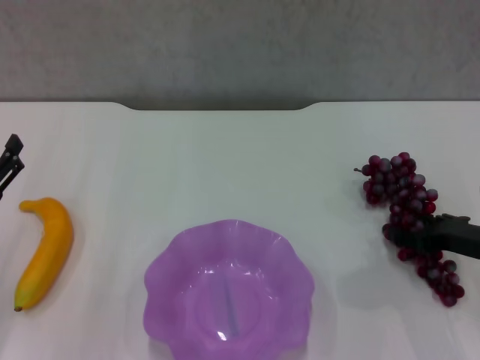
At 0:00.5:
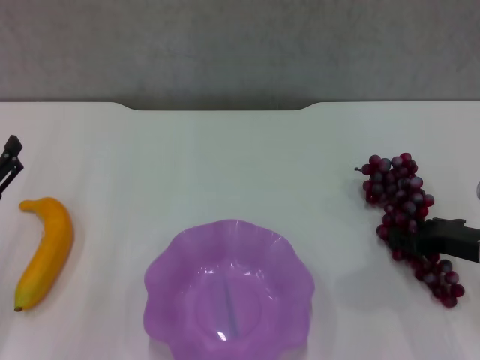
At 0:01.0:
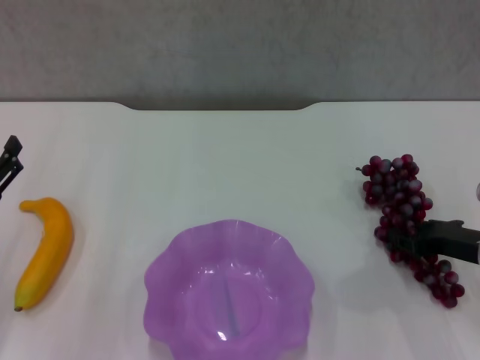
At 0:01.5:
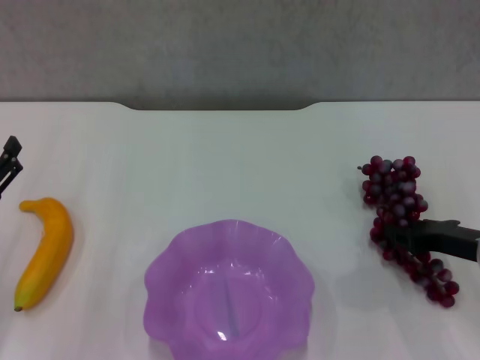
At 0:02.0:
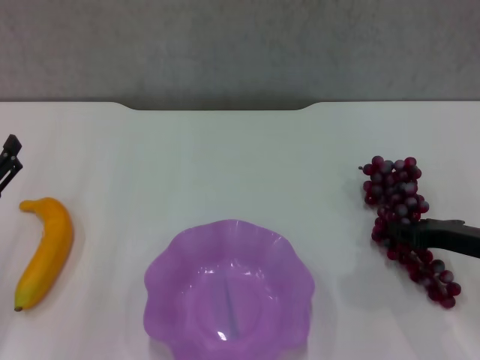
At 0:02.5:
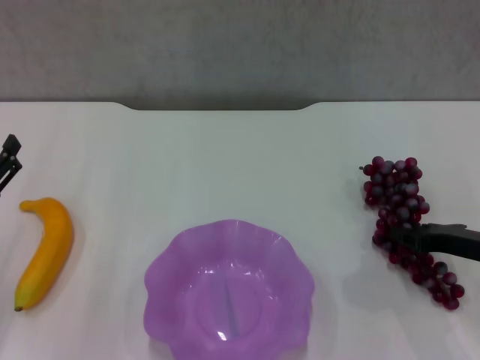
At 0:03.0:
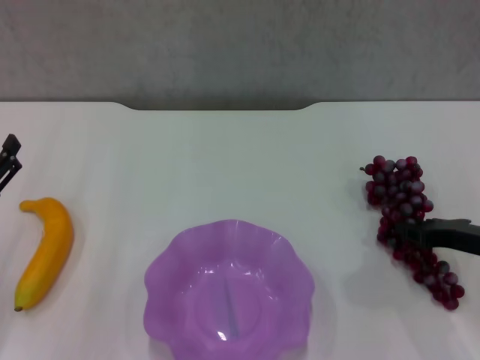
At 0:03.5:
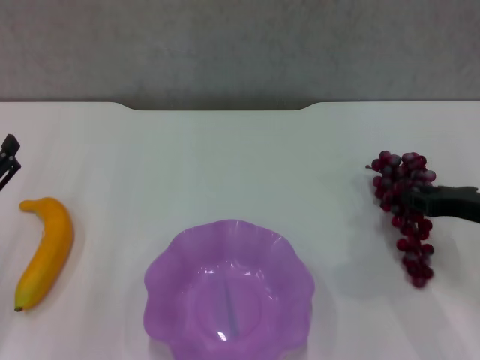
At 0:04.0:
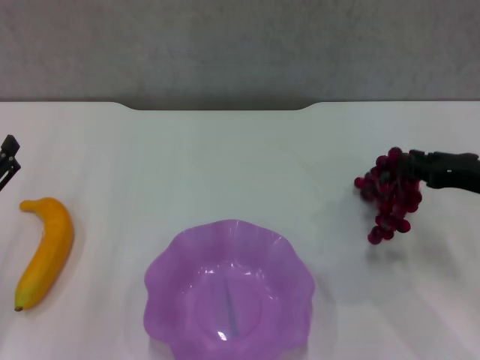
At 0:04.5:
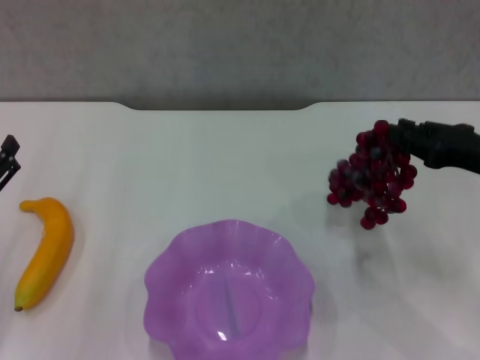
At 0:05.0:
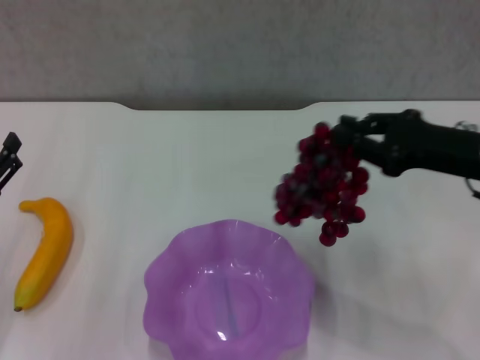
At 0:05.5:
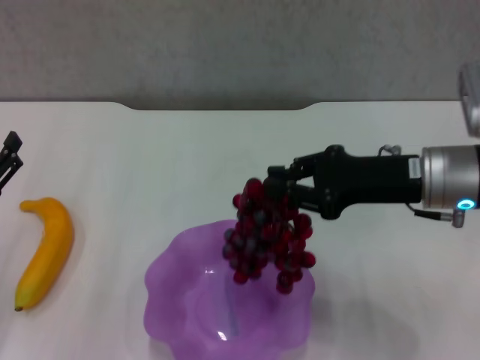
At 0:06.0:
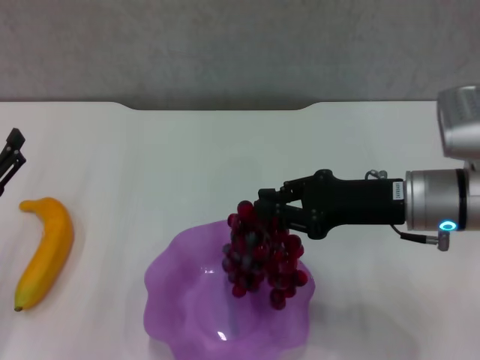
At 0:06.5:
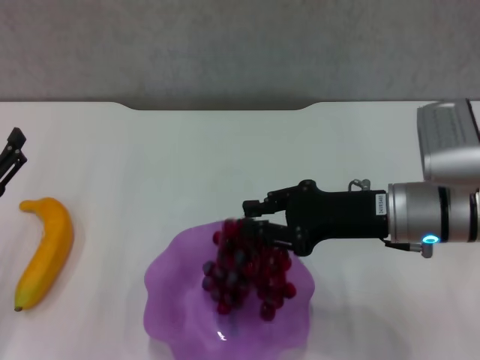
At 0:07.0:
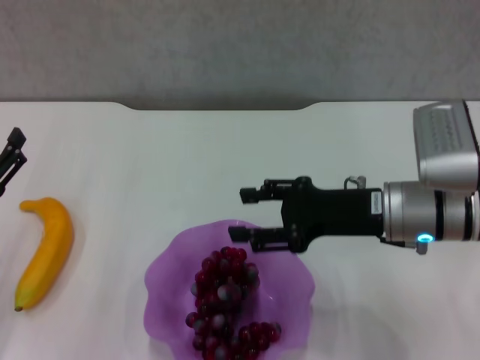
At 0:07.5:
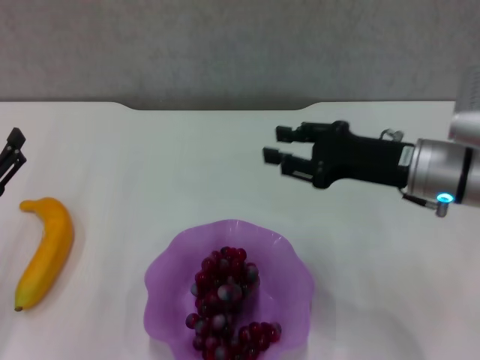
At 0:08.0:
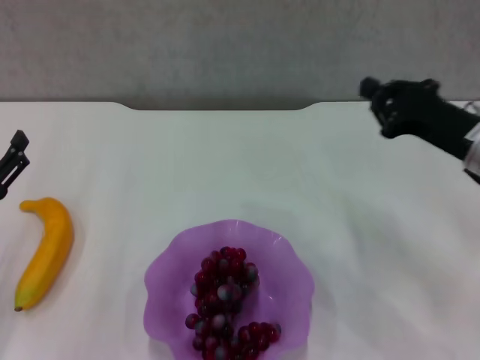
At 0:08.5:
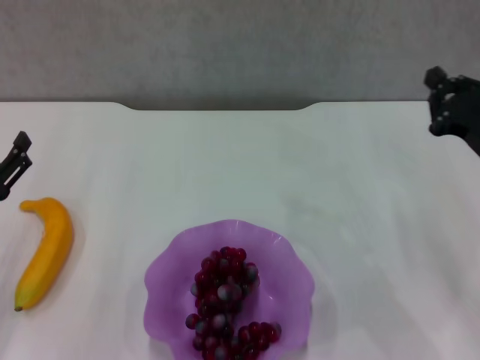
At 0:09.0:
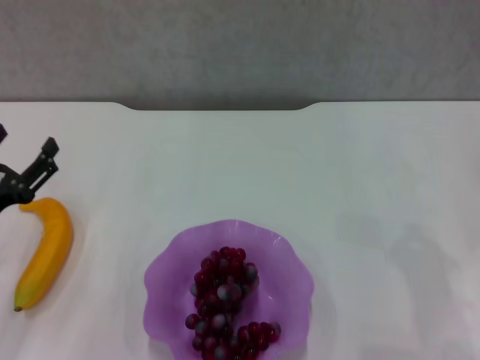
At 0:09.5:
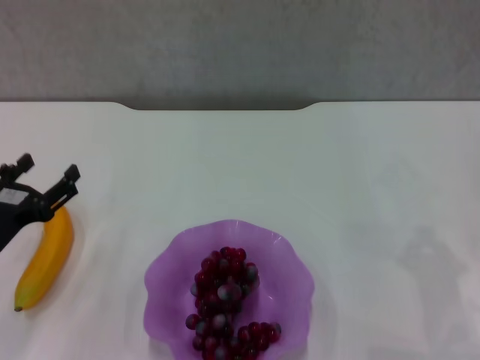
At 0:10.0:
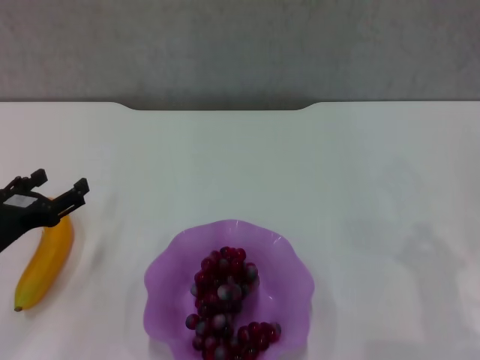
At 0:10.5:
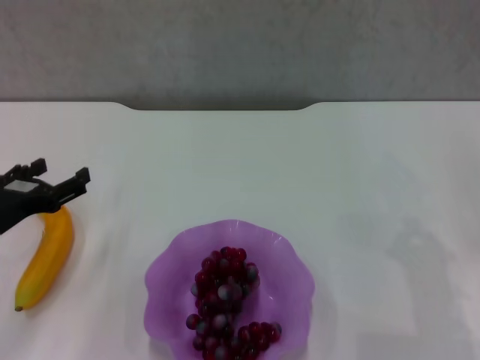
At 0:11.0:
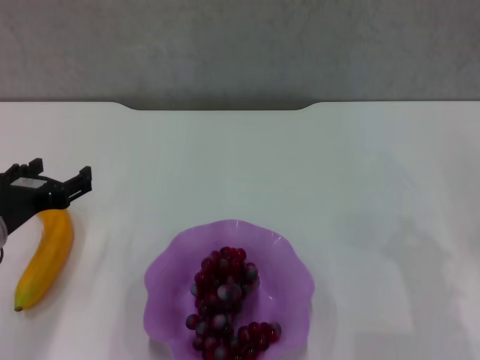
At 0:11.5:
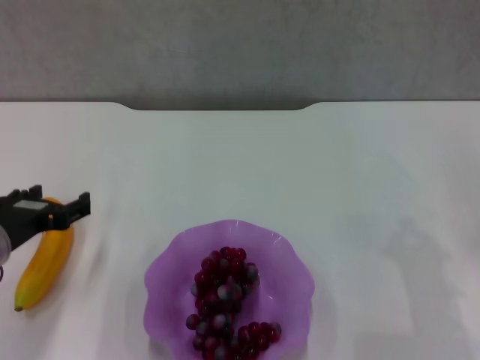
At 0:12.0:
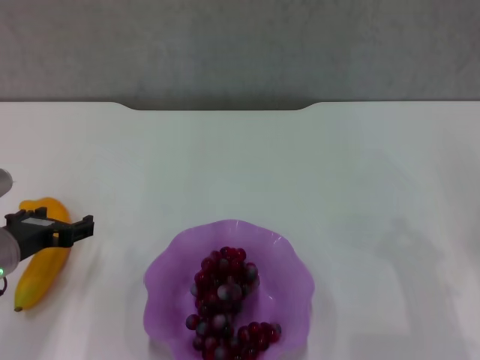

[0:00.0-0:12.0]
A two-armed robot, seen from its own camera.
Step, 0:02.0 to 0:06.5: Place the grape in the purple plate with right gripper.
0:00.0 to 0:02.0: The right gripper closes its fingers.
0:02.0 to 0:04.0: The right gripper shifts approximately 5 cm upward.
0:04.0 to 0:06.0: The right gripper goes about 10 cm to the left.
0:06.0 to 0:08.0: The right gripper shifts approximately 5 cm to the right, and opens and closes again.
0:08.0 to 0:10.0: The right gripper moves backward, to the right and downward, approximately 15 cm.

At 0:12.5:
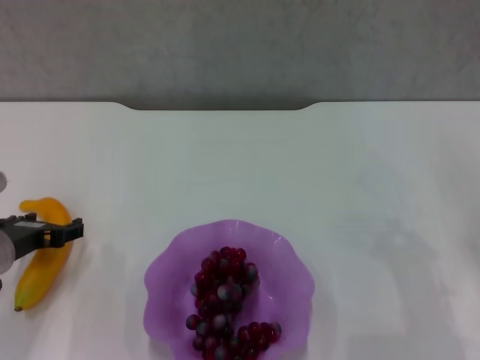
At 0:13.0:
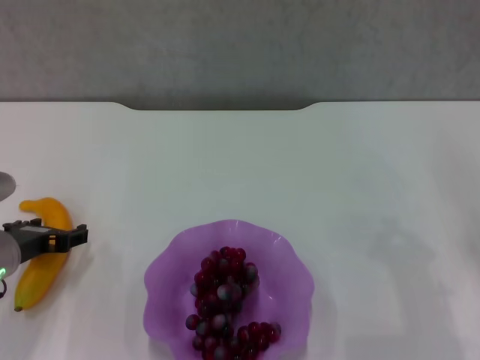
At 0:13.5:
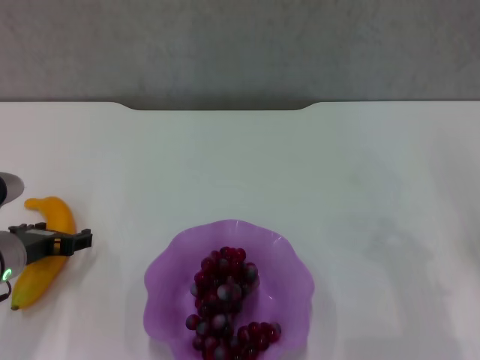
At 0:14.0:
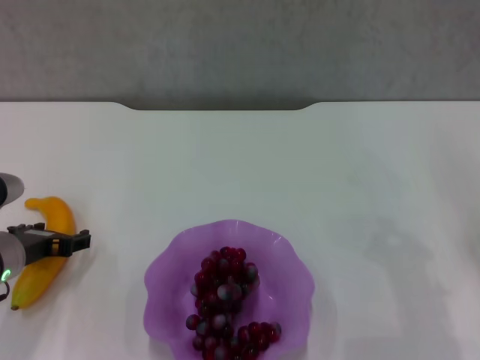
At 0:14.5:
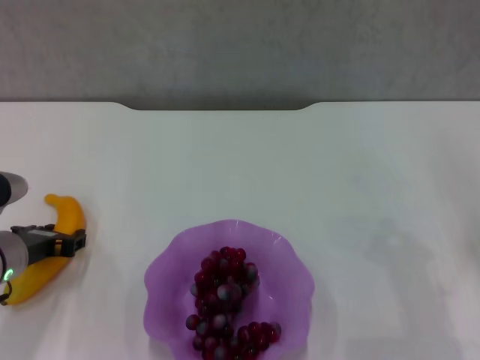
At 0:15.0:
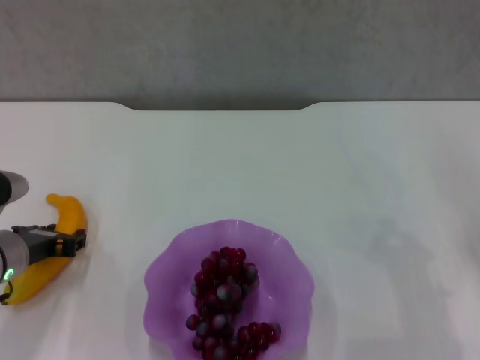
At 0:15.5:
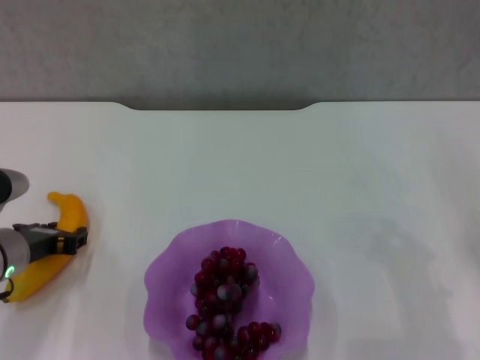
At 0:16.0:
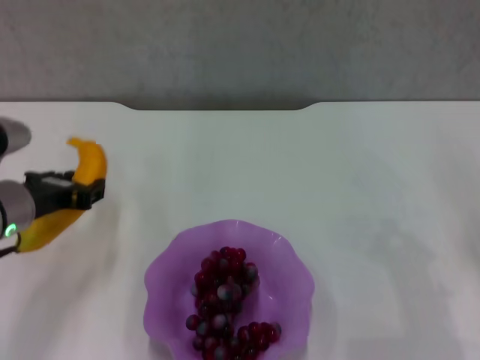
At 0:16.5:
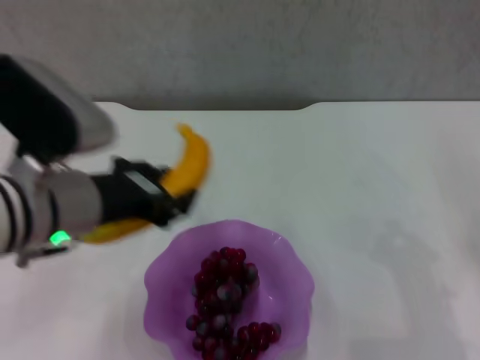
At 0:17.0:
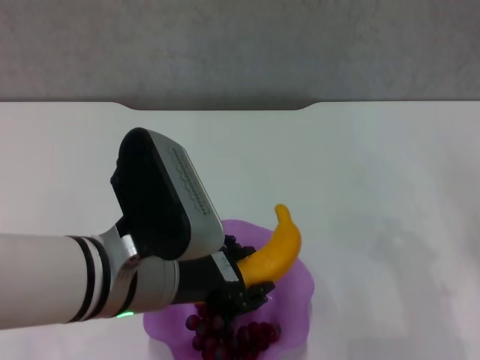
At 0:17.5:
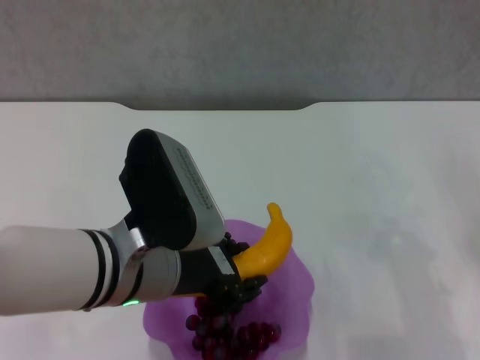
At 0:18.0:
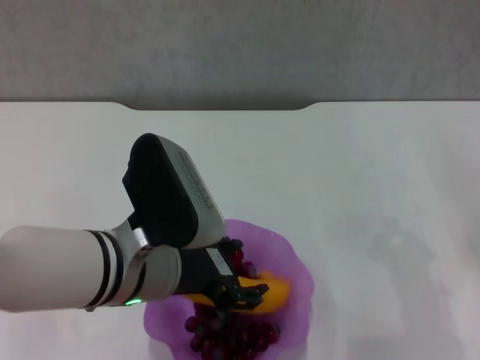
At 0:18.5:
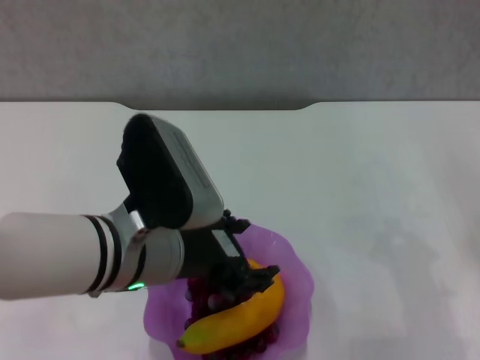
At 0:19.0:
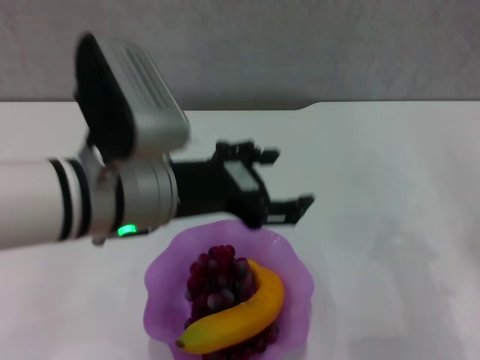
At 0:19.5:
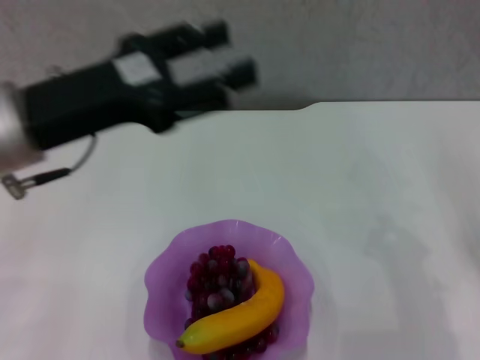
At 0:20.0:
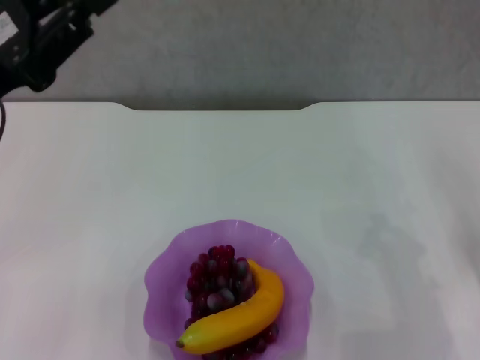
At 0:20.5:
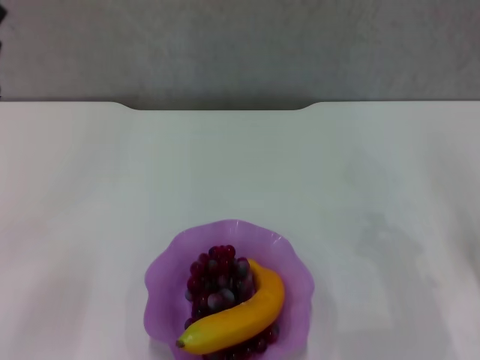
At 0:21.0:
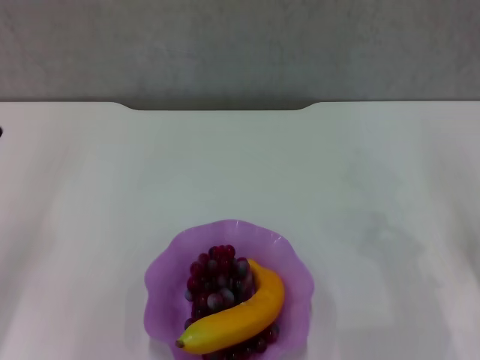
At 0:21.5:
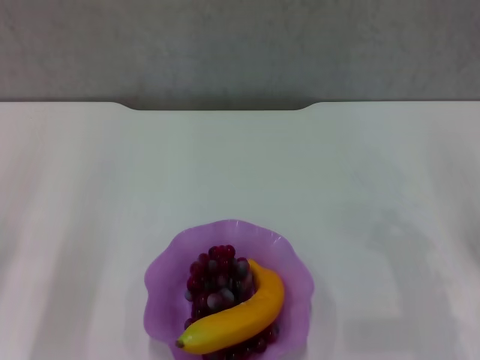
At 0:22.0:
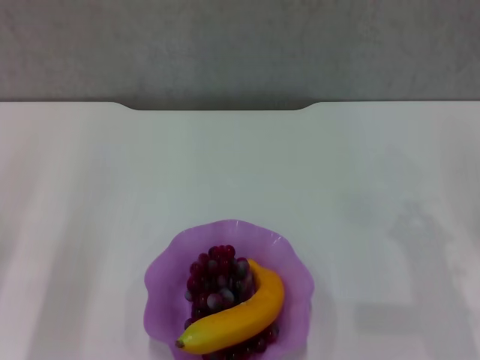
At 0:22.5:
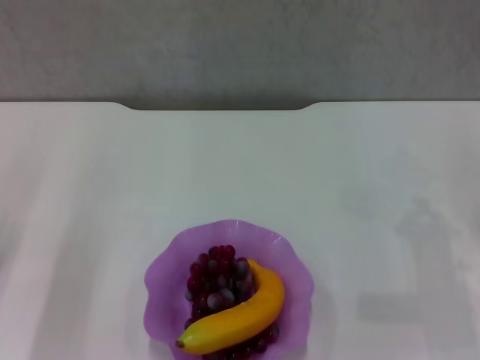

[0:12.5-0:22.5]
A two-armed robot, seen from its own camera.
Step, 0:12.5 to 0:14.5: Grasp the banana with left gripper.
Step, 0:15.0 to 0:18.0: Place the banana in the purple plate with left gripper.
0:12.5 to 0:14.5: The grippers stay close to where they were, moving slightly.
0:14.5 to 0:16.5: The left gripper moves upward and to the right, some 15 cm.
0:16.5 to 0:18.5: The left gripper heads to the right, covering about 5 cm, and opens up.
0:18.5 to 0:20.5: The left gripper is displaced to the left by roughly 20 cm, and closes.

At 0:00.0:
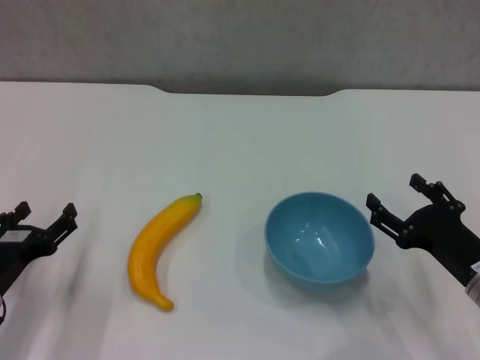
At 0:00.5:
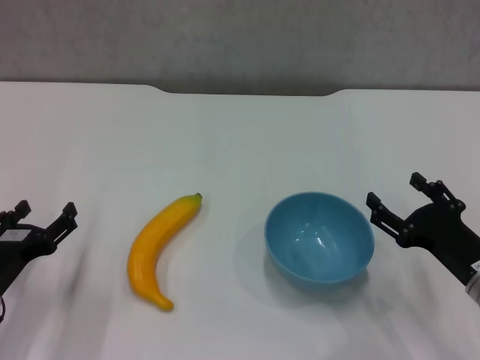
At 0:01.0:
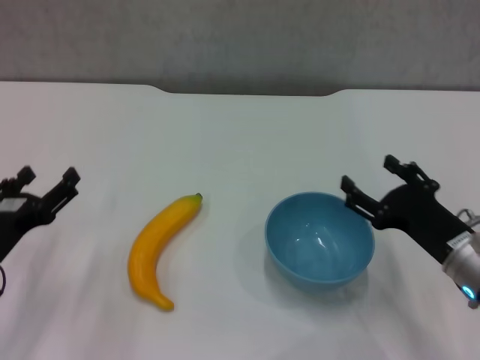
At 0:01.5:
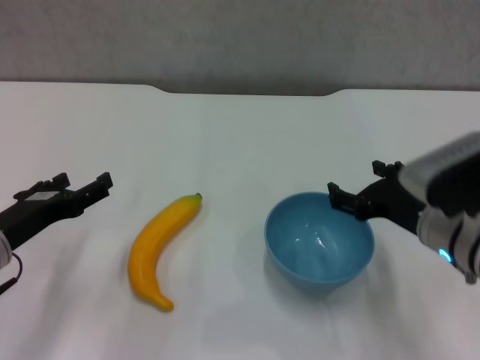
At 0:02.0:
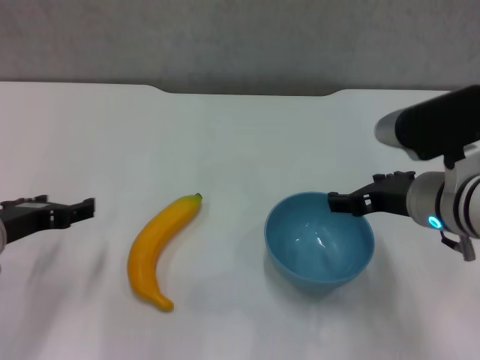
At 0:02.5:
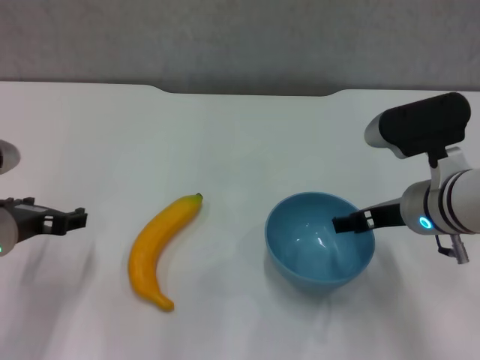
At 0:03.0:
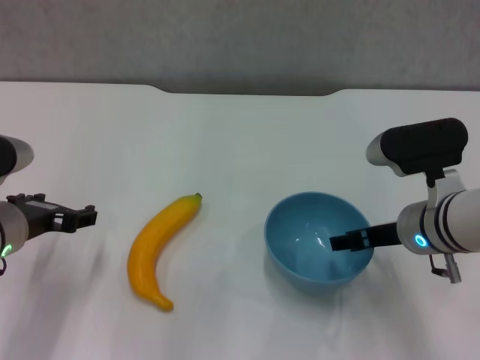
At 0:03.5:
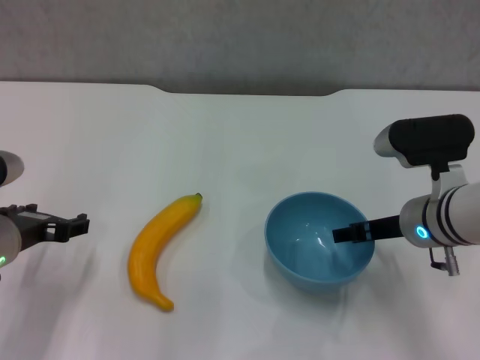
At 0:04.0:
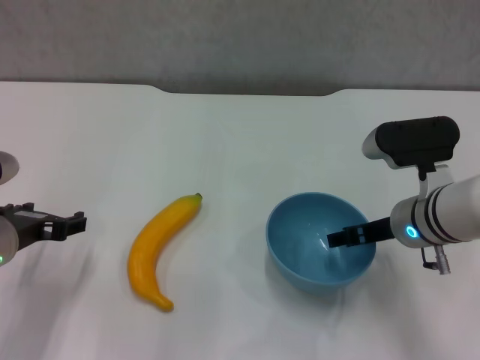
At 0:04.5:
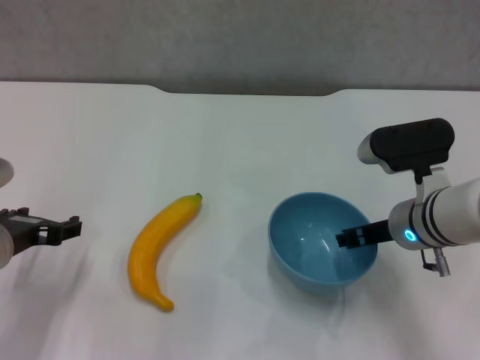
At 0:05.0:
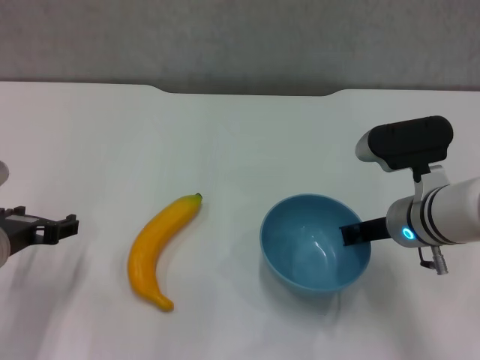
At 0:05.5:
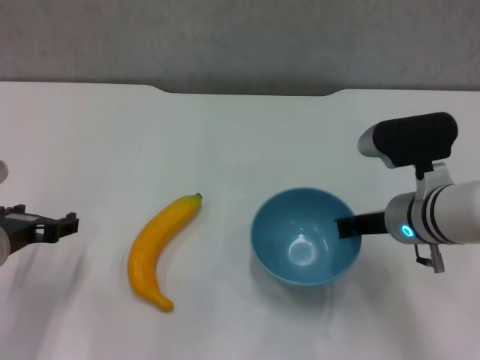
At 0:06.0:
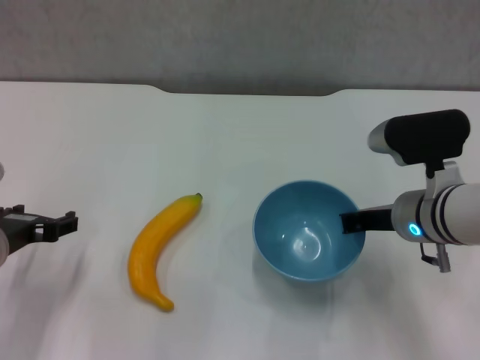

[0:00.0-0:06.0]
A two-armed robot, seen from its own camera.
Step, 0:00.0 to 0:04.5: Grasp the blue bowl with right gripper.
0:00.0 to 0:02.0: The left gripper heads upward, covering some 10 cm. Meanwhile the right gripper shifts roughly 15 cm upward, to the left and forward.
0:02.0 to 0:04.0: The right gripper travels downward by roughly 5 cm.
0:04.0 to 0:06.0: The right gripper closes its fingers.
